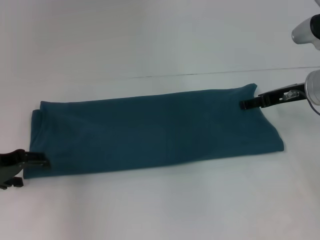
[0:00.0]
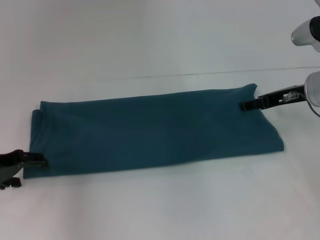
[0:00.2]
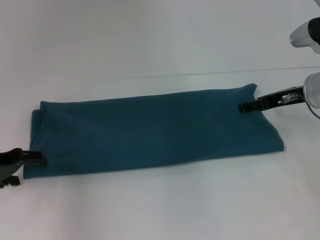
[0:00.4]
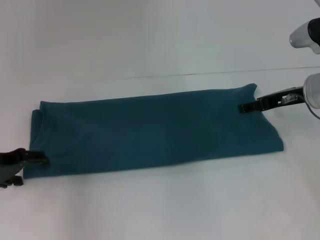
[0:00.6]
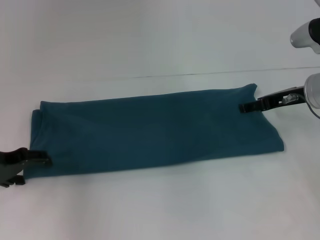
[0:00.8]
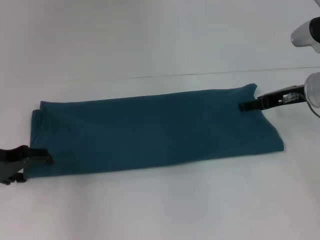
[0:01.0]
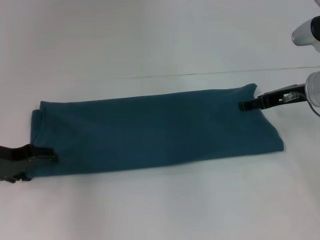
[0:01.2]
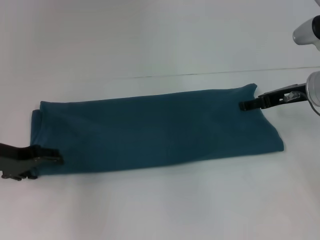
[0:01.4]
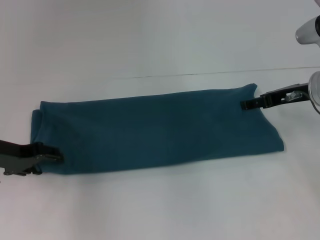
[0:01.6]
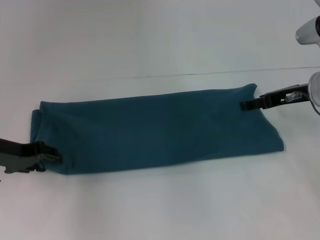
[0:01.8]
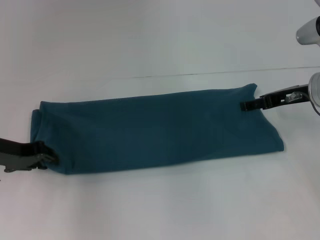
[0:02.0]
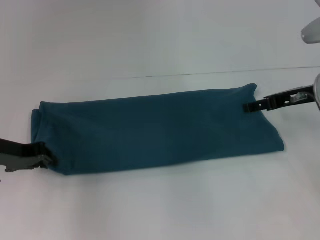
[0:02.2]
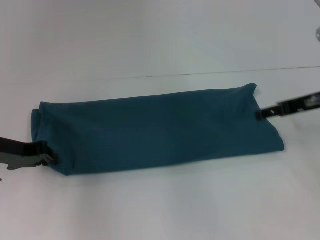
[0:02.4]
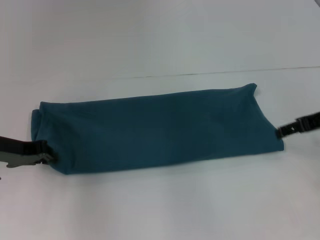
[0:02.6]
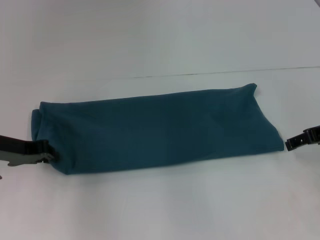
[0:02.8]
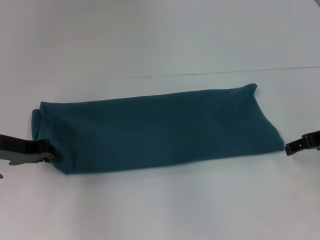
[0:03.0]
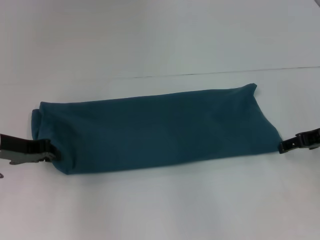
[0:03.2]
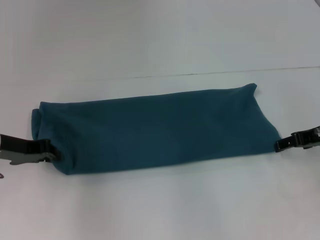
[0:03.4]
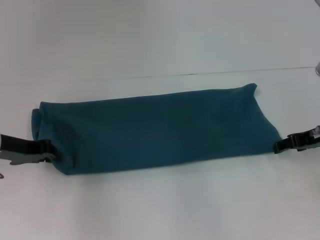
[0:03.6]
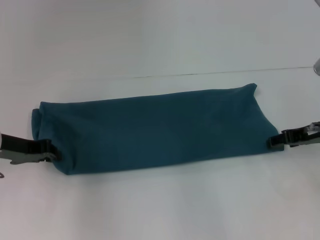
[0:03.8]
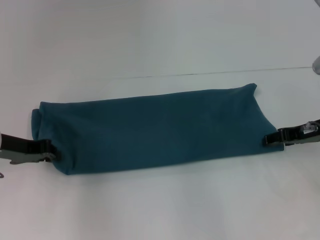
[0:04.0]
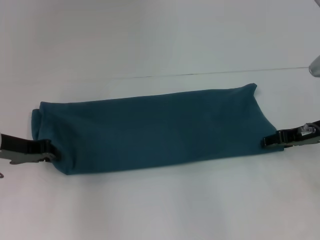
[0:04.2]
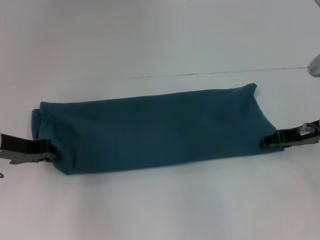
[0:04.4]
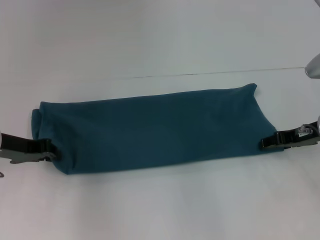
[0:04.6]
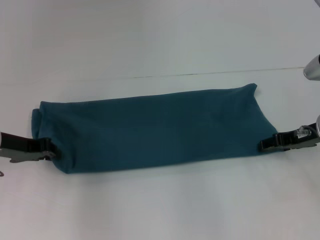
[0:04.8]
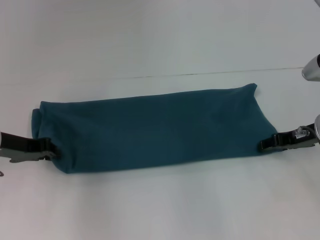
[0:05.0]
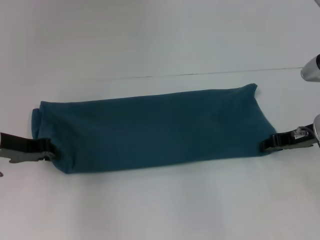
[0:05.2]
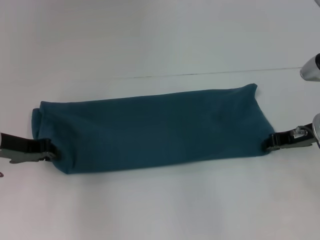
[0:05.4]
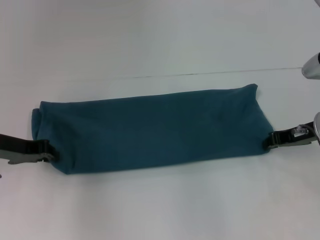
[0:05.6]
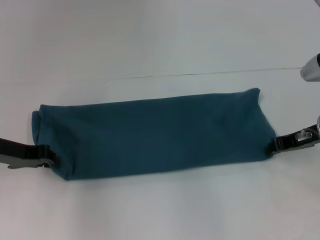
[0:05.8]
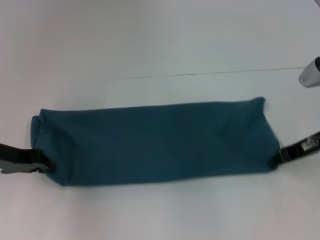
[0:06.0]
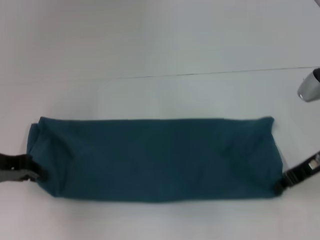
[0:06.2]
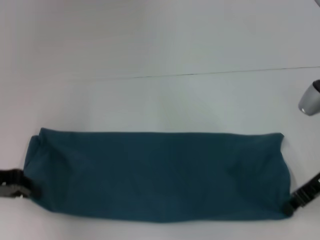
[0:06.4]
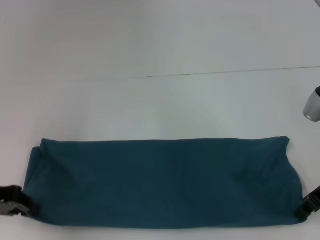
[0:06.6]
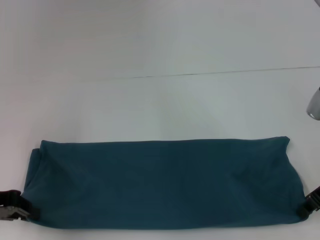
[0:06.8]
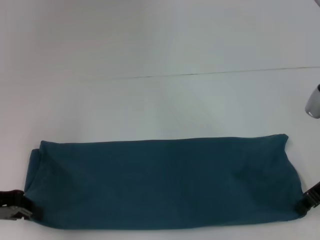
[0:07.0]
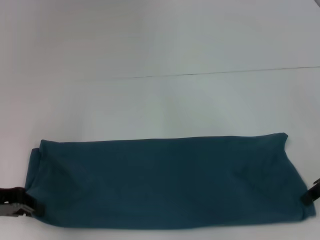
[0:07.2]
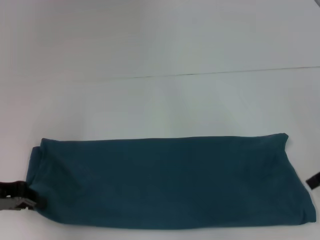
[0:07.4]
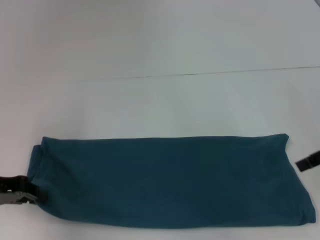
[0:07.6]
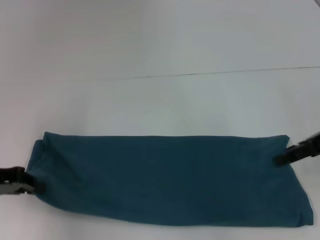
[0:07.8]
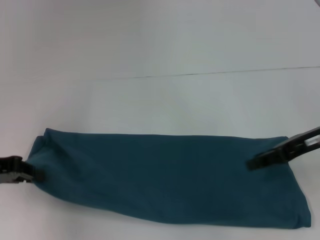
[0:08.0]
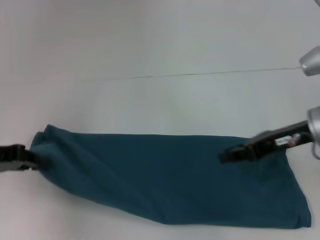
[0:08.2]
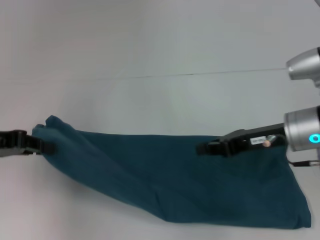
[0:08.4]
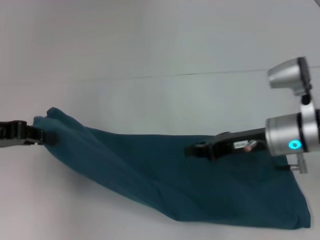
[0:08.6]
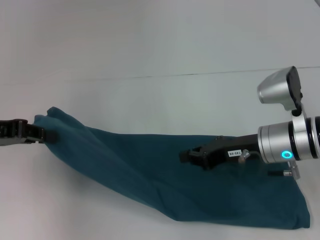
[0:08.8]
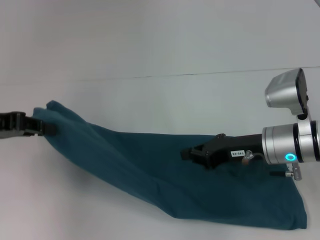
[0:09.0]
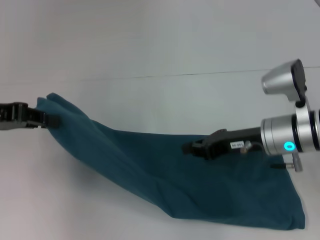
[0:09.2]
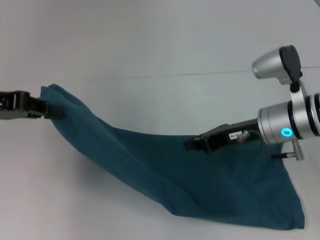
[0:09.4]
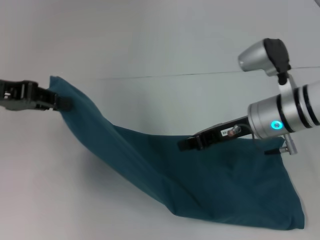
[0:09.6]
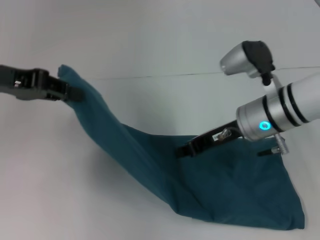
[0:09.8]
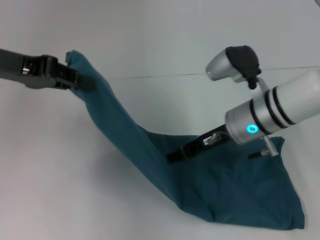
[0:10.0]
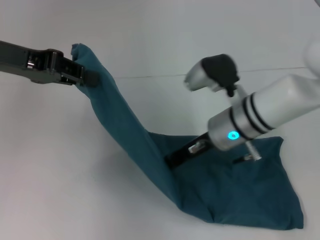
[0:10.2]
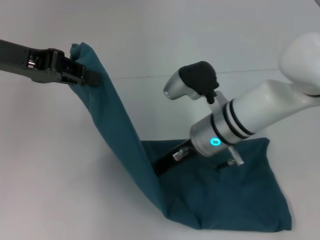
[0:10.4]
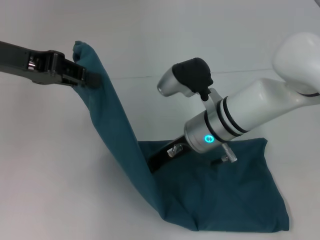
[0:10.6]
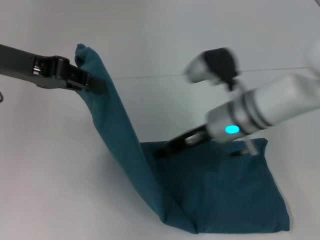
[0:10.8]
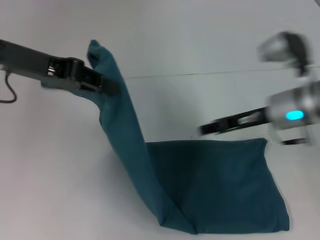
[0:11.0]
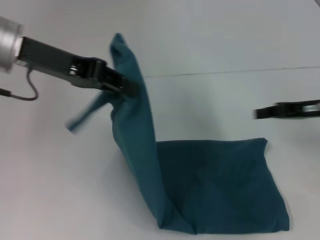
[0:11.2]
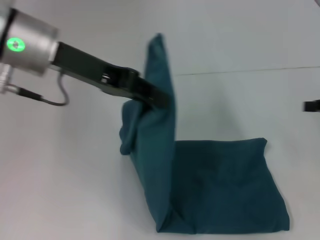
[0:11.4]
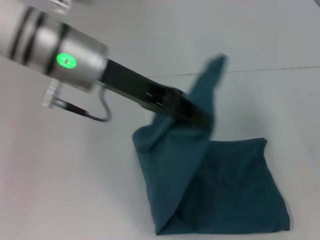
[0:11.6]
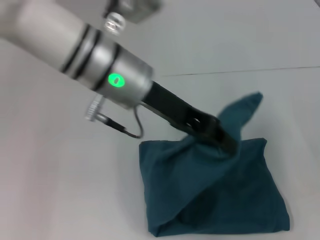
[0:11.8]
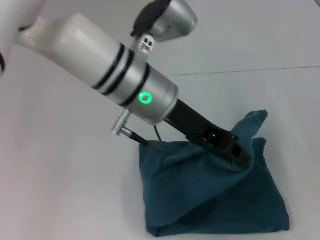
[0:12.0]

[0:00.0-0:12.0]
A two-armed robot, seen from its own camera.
Step, 0:00.0 to 0:10.8: Press the middle of the clothes with your right hand.
0:00.0 to 0:01.6: The grippers make only small movements.
0:01.6 to 0:03.0: The right gripper ends up approximately 5 cm from where it was. Meanwhile the left gripper closes its fingers.
0:03.0 to 0:04.4: The grippers stay close to where they were, moving slightly.
0:04.4 to 0:06.0: The right gripper closes.
0:06.0 to 0:07.6: The right gripper moves upward and to the right, roughly 10 cm, and opens its fingers.
0:07.6 to 0:09.0: The left gripper heads upward, covering some 5 cm; the right gripper is displaced to the left and downward by roughly 15 cm, and closes its fingers.
0:09.0 to 0:10.4: The right gripper moves to the left, roughly 10 cm. Meanwhile the left gripper moves upward and to the right, some 10 cm.
0:10.4 to 0:12.0: Both grippers move to the right, some 25 cm.

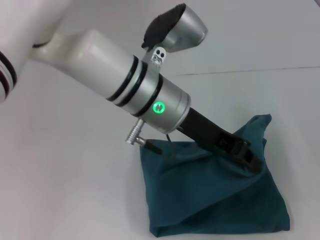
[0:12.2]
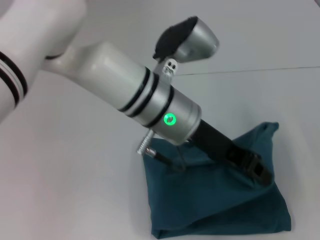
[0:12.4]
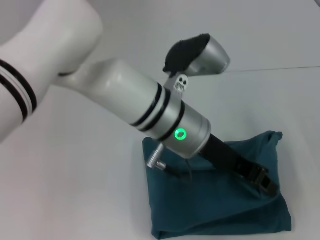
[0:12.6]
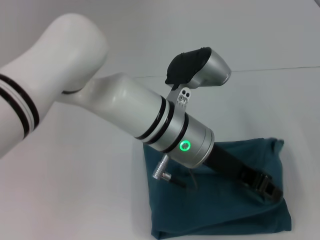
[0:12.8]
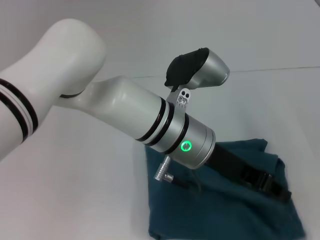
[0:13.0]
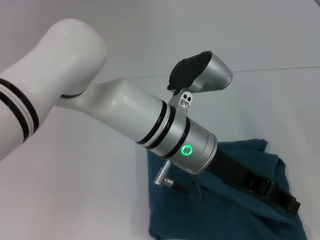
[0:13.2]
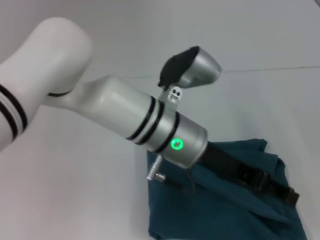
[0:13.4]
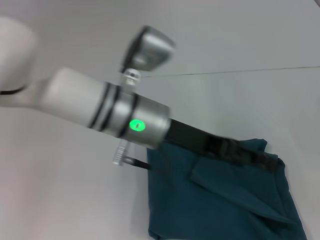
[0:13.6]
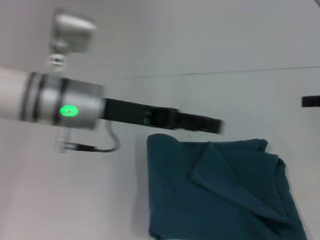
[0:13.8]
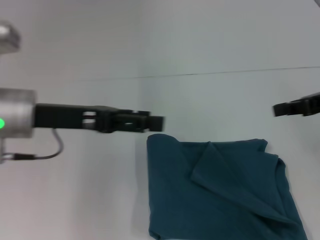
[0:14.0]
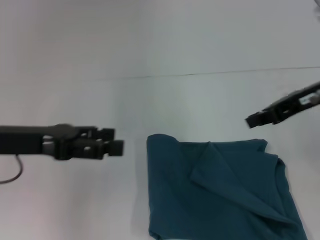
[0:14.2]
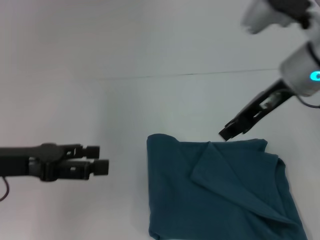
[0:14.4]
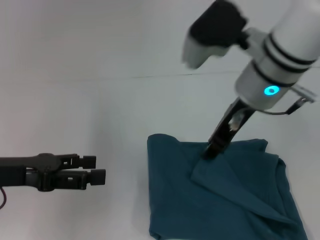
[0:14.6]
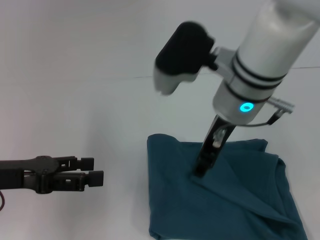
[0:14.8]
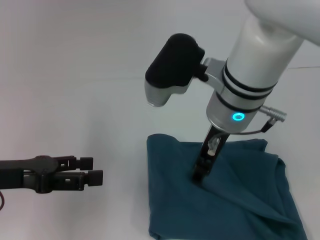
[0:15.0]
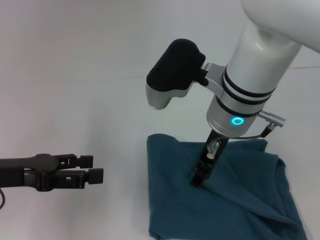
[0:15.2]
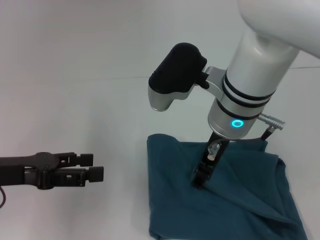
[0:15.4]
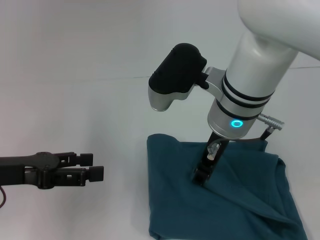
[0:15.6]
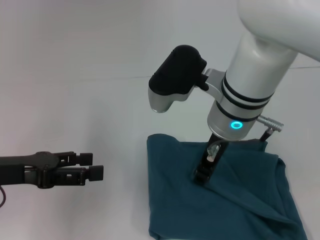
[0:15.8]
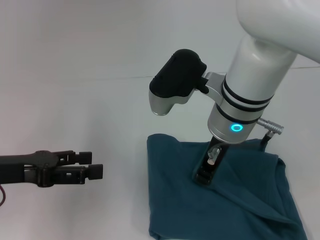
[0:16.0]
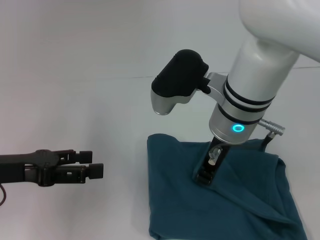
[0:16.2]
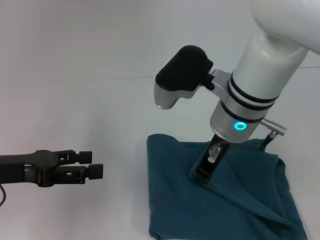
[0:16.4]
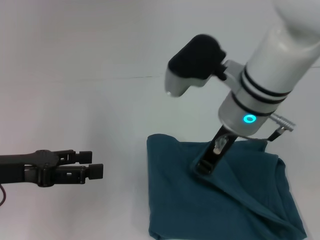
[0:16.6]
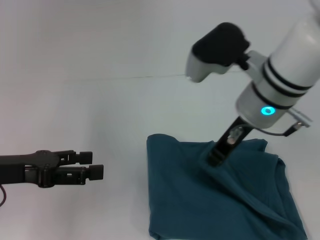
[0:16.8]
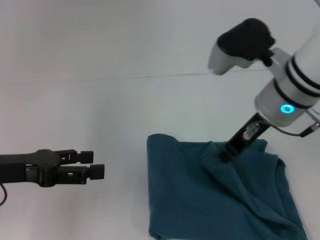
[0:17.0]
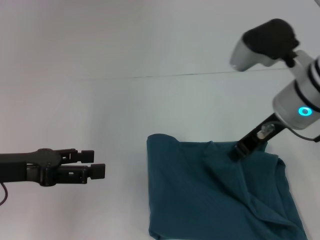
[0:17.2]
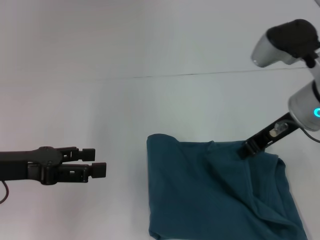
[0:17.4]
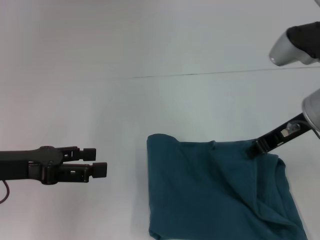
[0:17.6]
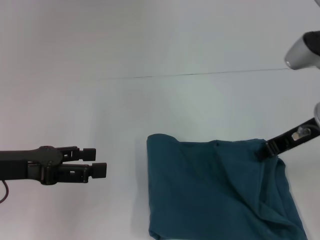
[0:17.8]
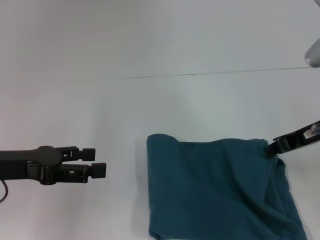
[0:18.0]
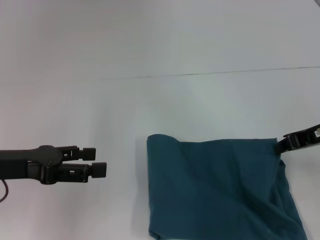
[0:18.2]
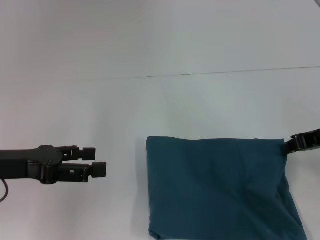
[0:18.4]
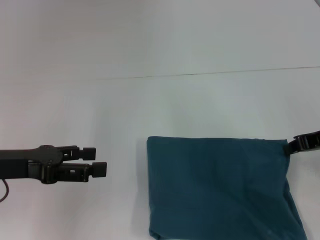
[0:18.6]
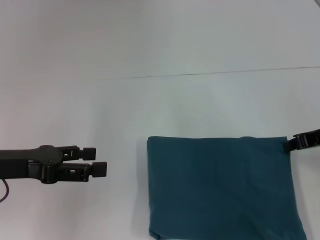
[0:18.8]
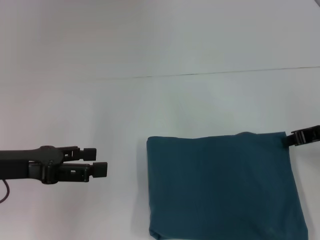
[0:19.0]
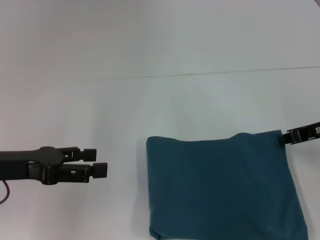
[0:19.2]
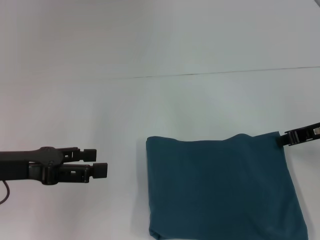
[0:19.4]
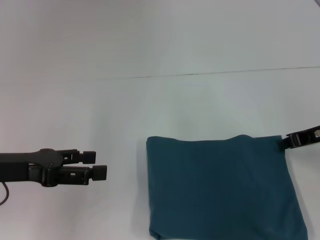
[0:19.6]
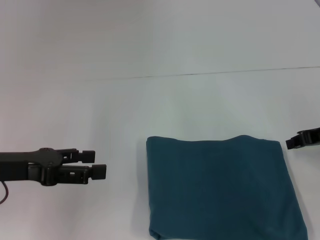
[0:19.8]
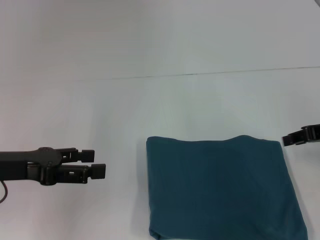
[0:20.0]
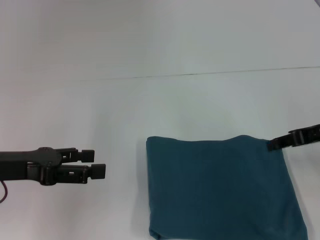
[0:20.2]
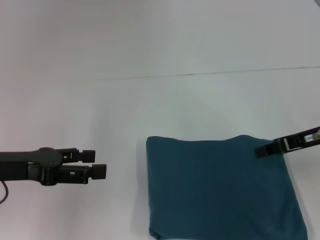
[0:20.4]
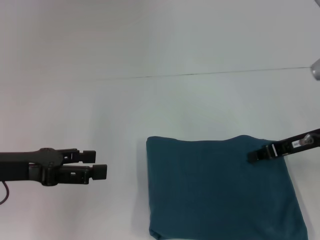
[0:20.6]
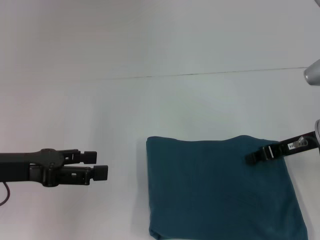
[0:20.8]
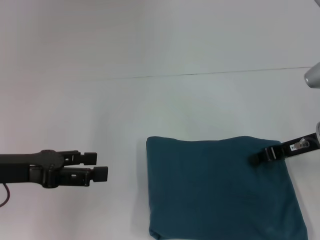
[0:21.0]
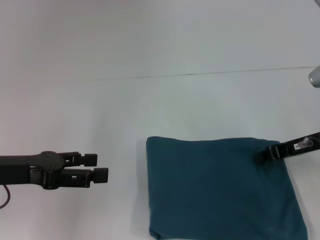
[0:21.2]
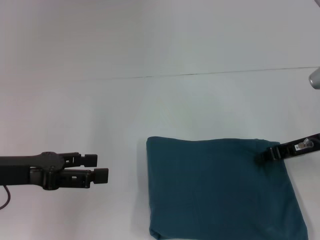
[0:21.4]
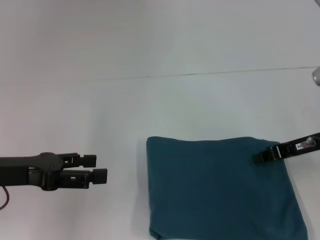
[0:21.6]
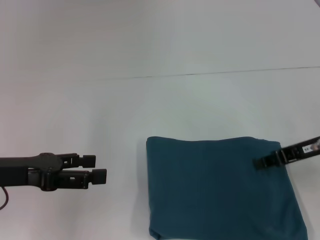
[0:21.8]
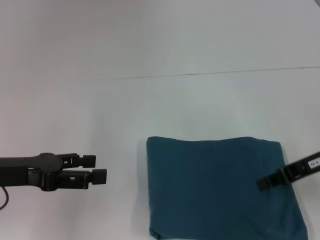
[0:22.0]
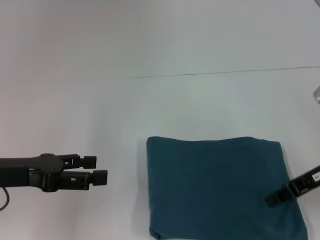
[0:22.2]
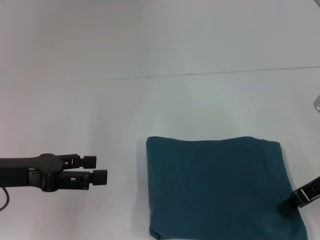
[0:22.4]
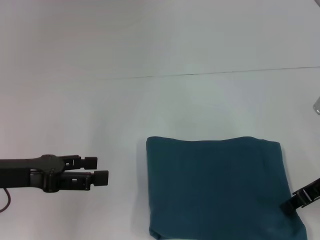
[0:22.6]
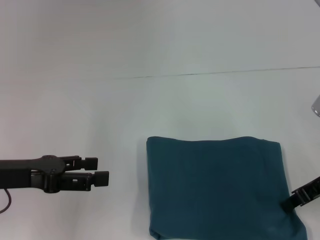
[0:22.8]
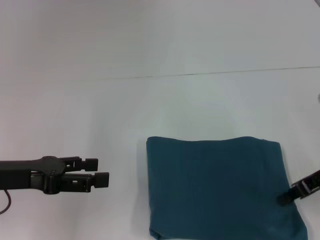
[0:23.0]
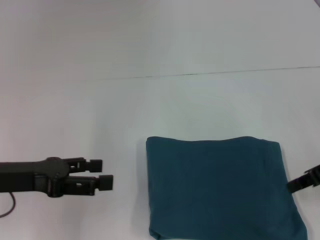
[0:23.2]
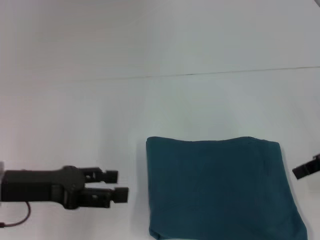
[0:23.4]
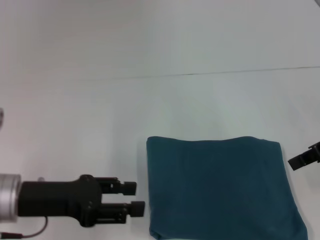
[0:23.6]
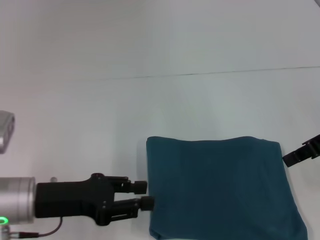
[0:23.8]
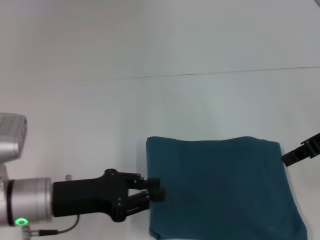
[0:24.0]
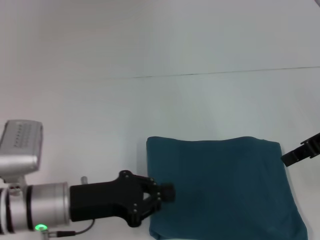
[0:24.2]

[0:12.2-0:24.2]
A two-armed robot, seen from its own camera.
0:12.2 to 0:13.8: The left gripper moves to the left, roughly 10 cm, and opens. Meanwhile the right gripper shifts by some 5 cm.
0:13.8 to 0:15.2: The right gripper moves to the left, approximately 30 cm, and opens its fingers, while the left gripper heads to the left and backward, covering approximately 15 cm.
0:15.2 to 0:16.6: The right gripper closes its fingers.
0:16.6 to 0:18.2: The right gripper travels to the right by some 20 cm.
0:18.2 to 0:19.8: The right gripper moves some 5 cm.
0:19.8 to 0:21.2: The grippers stay close to where they were, moving slightly.
0:21.2 to 0:22.6: The grippers move only a little.
0:22.6 to 0:24.2: The right gripper goes some 10 cm upward. The left gripper shifts approximately 10 cm to the right and downward, and closes its fingers.
